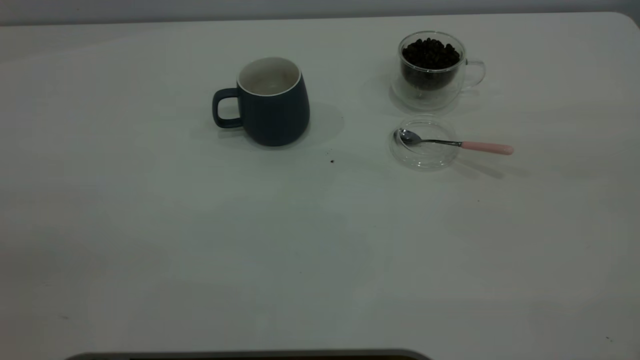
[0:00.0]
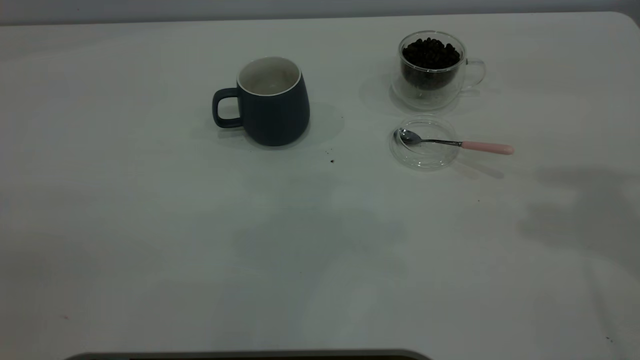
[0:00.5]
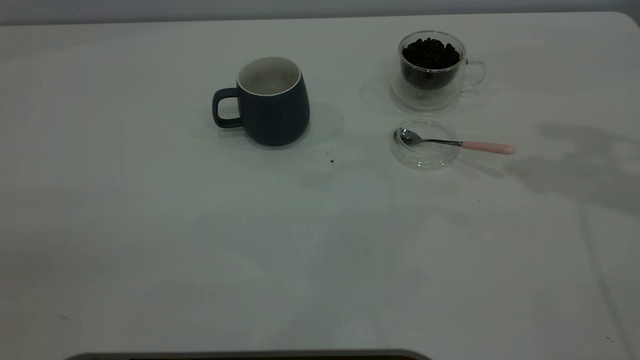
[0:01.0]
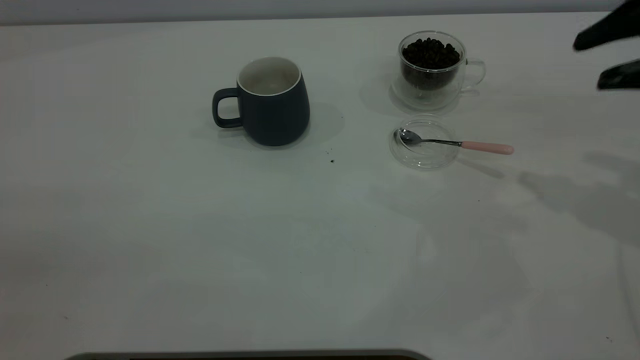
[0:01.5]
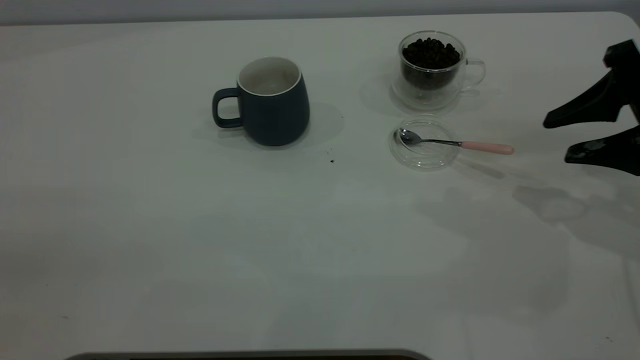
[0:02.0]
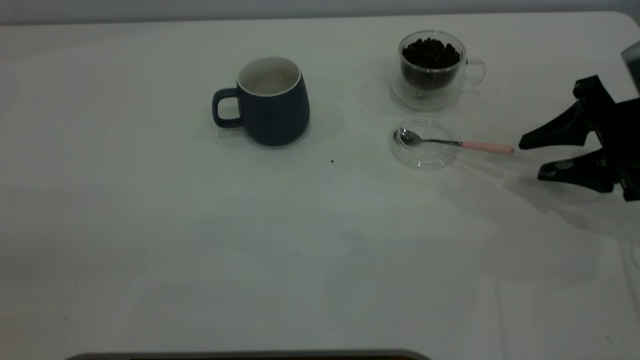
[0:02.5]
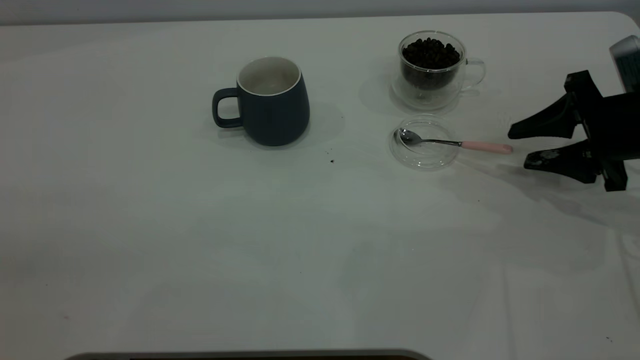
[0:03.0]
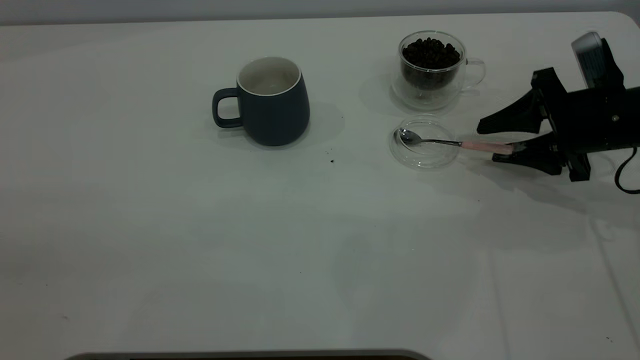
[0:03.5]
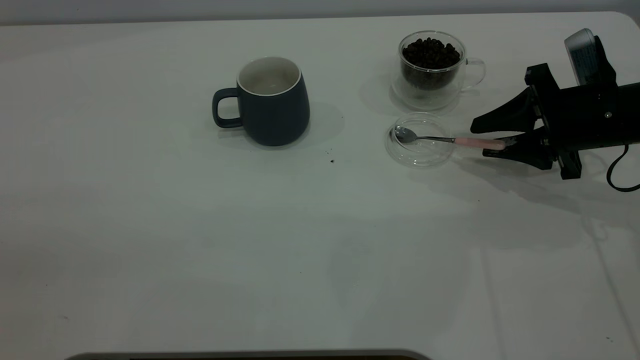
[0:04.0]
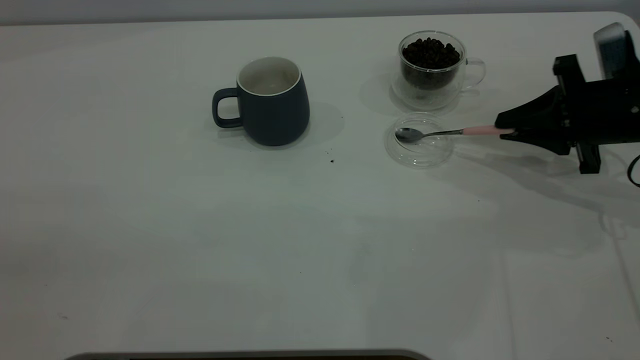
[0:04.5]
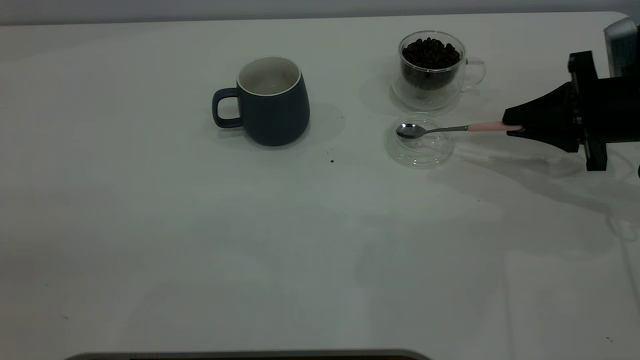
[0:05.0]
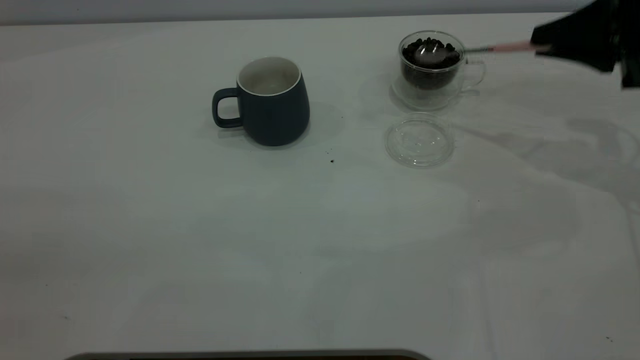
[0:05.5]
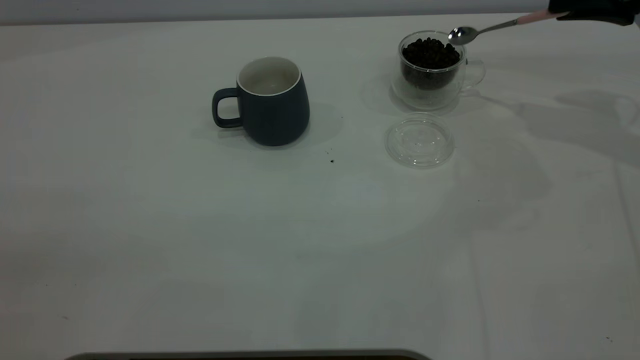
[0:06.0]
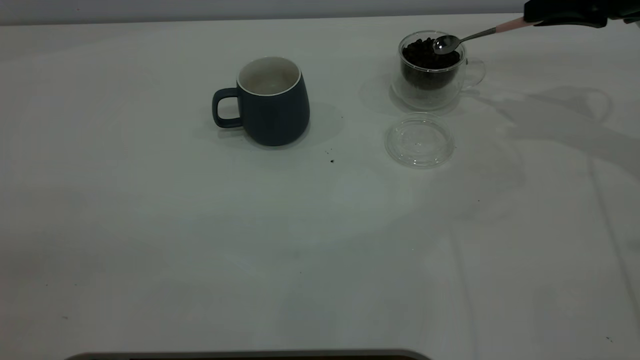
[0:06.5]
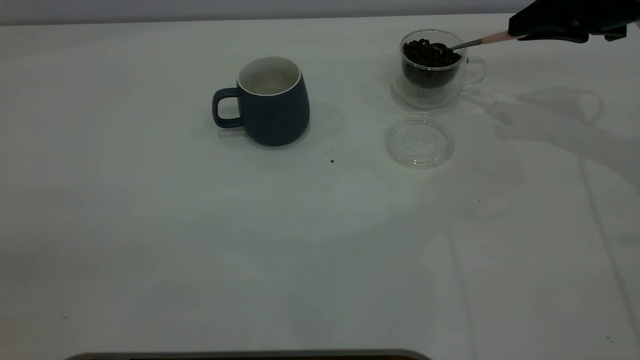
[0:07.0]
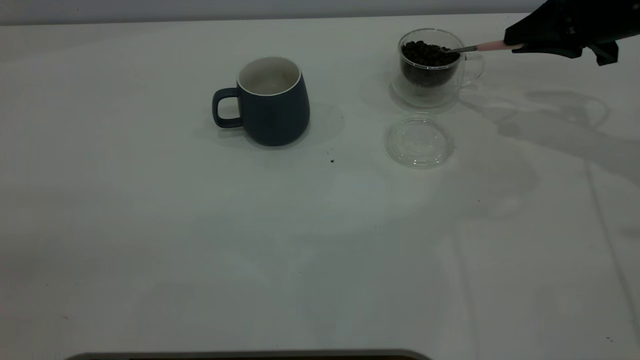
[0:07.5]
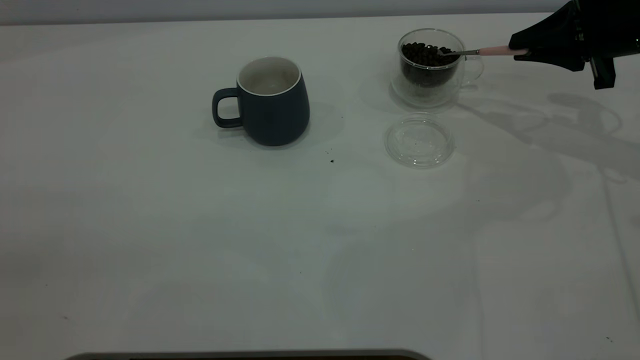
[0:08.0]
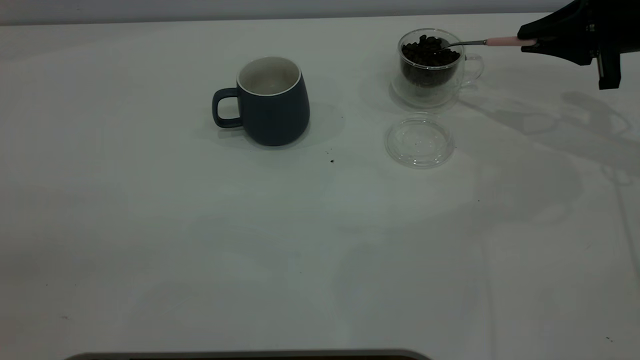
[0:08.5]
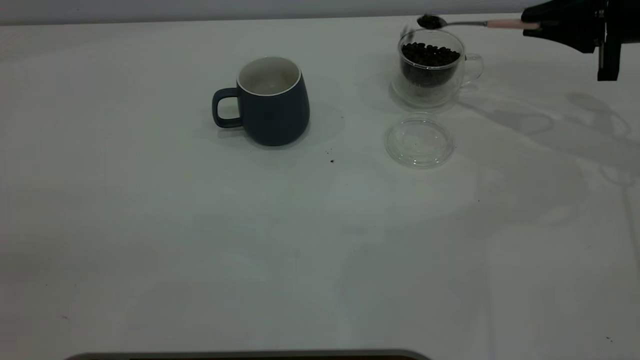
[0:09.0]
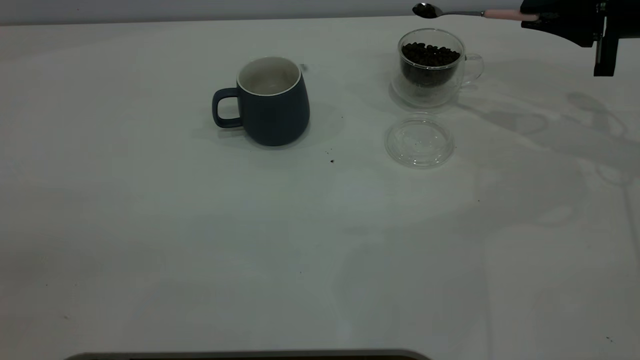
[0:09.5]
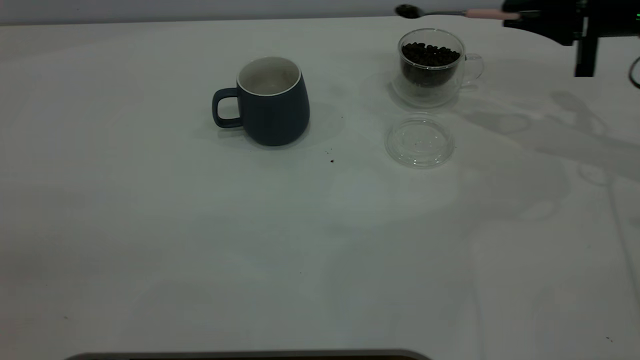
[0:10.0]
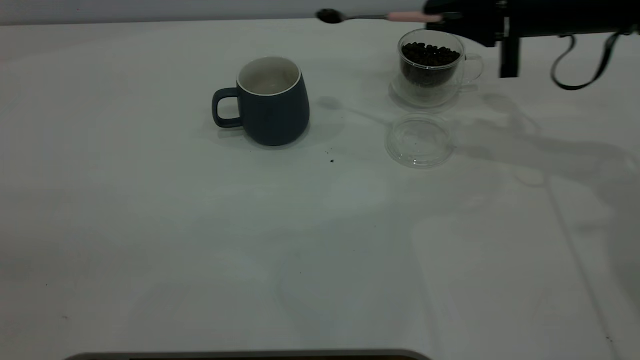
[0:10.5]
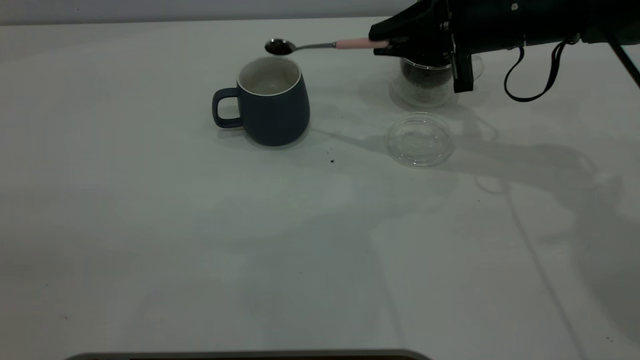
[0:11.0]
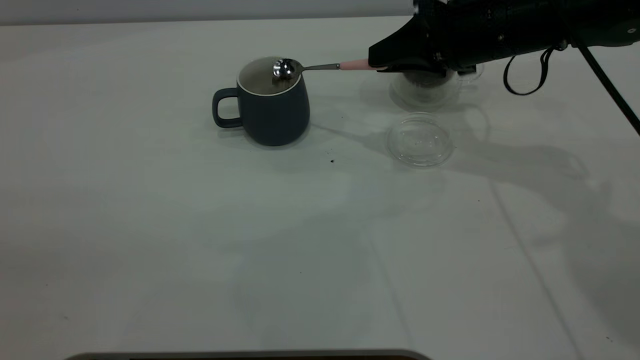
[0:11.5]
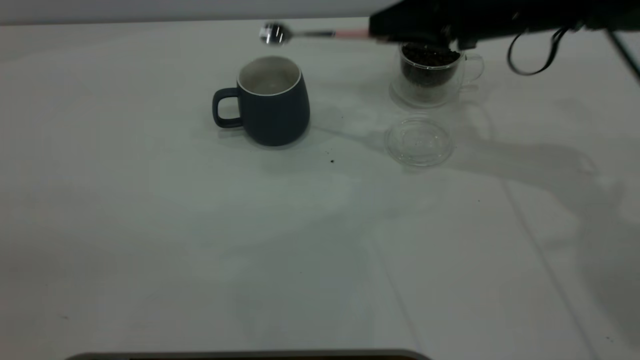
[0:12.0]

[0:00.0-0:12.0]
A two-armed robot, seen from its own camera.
Task of the whole recording: the left gripper place the grey cup in the center of the table, the right gripper take the pink spoon from the cup lid and scoop out the coffee beans from the coffee cup and put them into the grey cup, the right gripper put the spoon back into the cup lid.
Step, 0:00.0 to 0:05.0: Pick up the spoon.
Step, 0:05.5 to 0:11.5: Scoop a spoonful of beans into the cup.
0:00.0 to 0:02.0: The right gripper is displaced downward and forward by roughly 35 cm.
0:02.0 to 0:04.0: The right gripper moves downward and forward, some 10 cm.
0:04.0 to 0:06.0: The right gripper shifts some 15 cm upward, forward and to the right, and closes up.
0:06.0 to 0:08.0: The right gripper shifts roughly 5 cm downward.
0:08.0 to 0:10.0: The grippers make only small movements.
0:10.0 to 0:12.0: The right gripper moves to the left, some 10 cm.

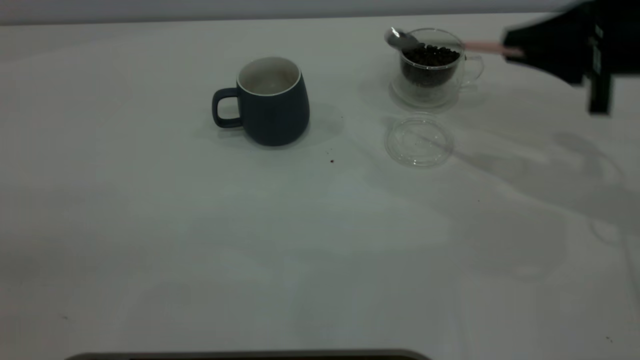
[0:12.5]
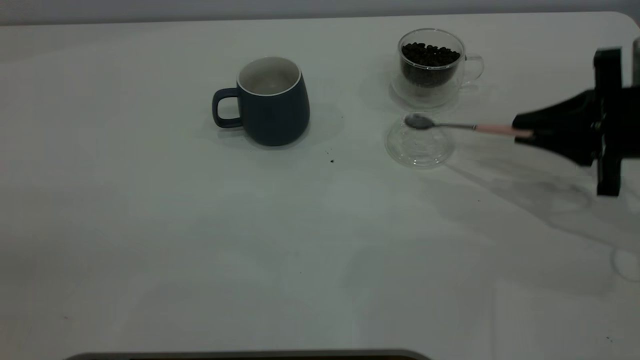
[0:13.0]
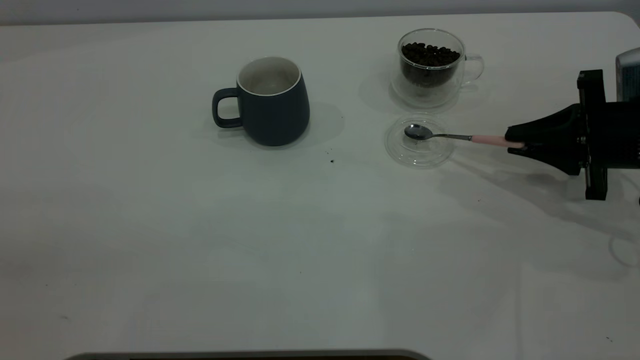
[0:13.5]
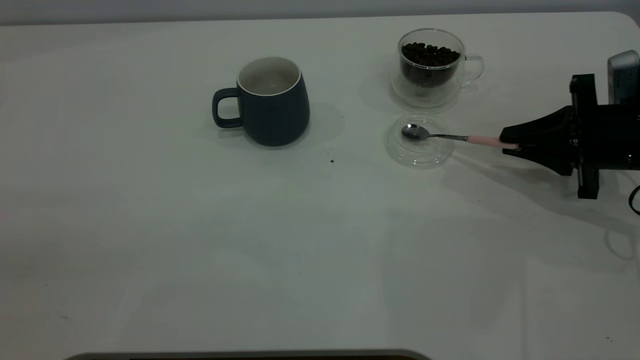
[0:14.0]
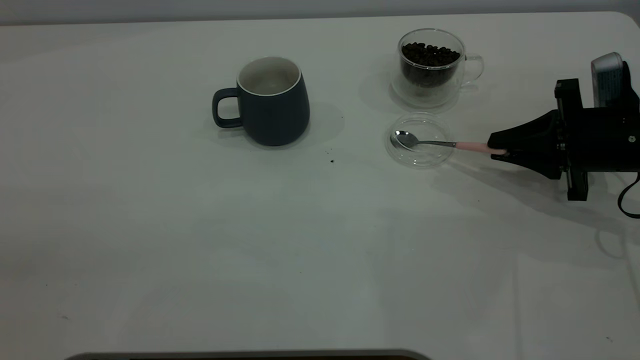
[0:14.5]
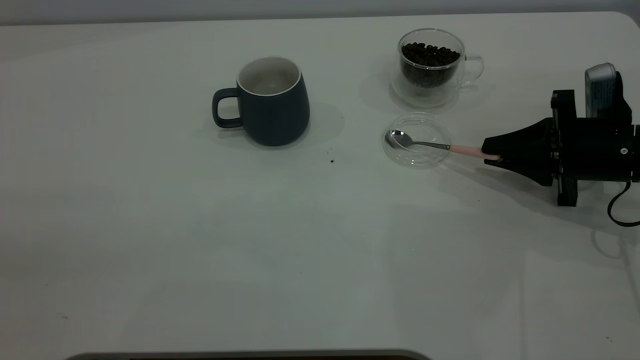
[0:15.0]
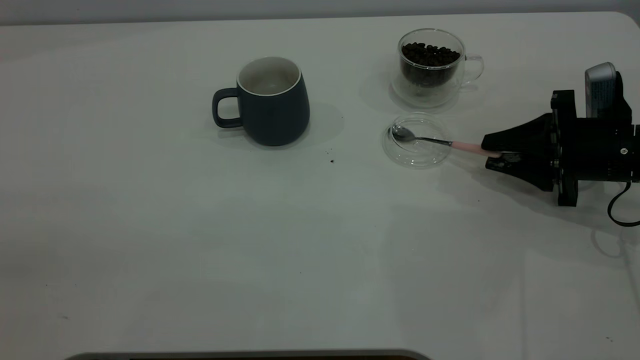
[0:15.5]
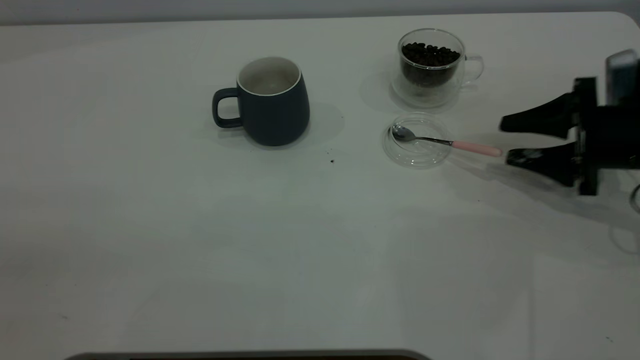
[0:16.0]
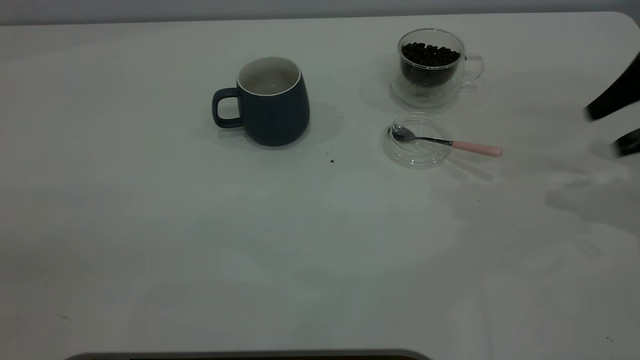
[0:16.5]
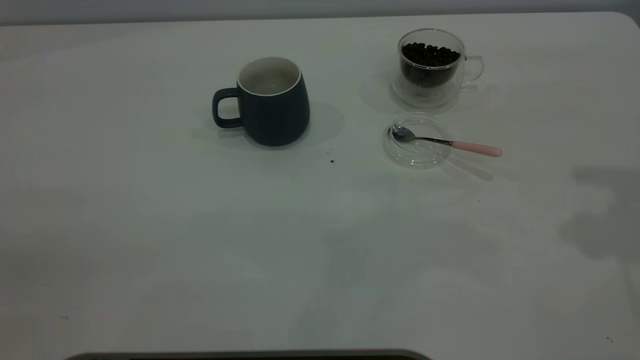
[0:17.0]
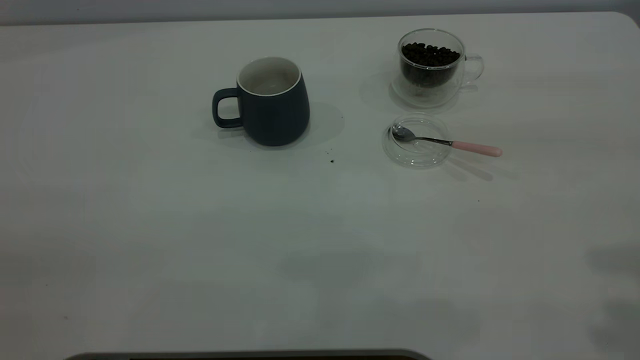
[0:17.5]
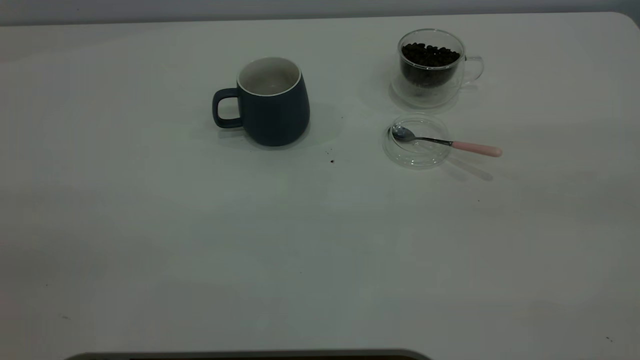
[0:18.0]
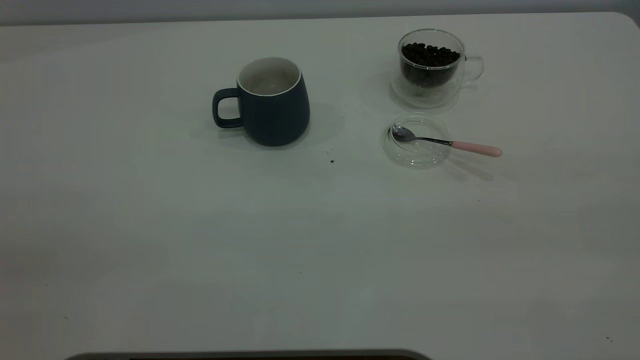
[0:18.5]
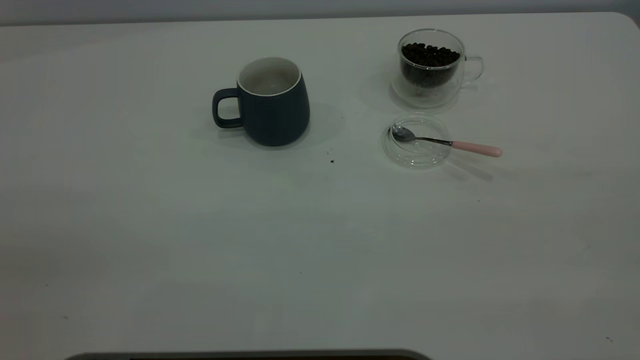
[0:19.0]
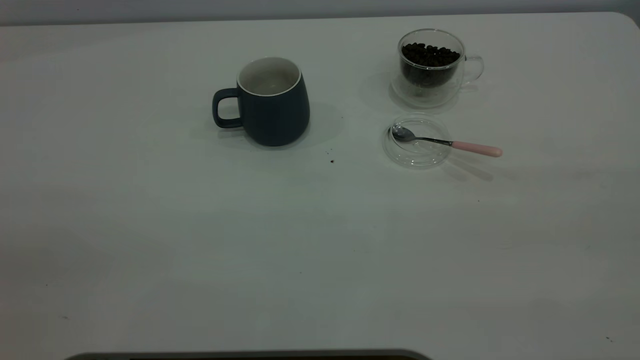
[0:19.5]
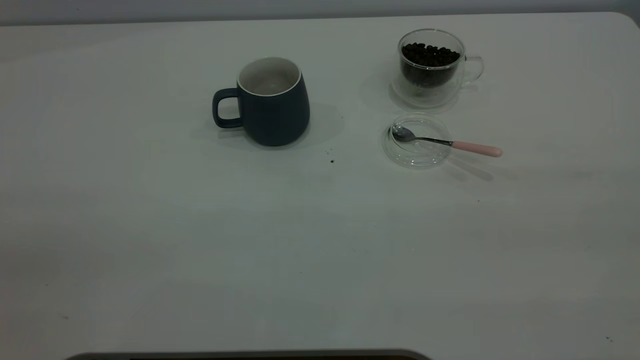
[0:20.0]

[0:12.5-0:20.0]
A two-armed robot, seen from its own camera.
Task of the whole recording: the left gripper place the grey cup in the center of the table, the right gripper take the pink spoon from the cup lid and scoop out the coffee beans from the coffee cup and put them into the grey cup, the right gripper put the spoon back into the cup lid.
Step, 0:12.5 to 0:16.0: Place the spoon back in its original place.
0:12.5 to 0:14.5: The right gripper shifts some 10 cm downward.
0:14.5 to 0:16.5: The right gripper heads upward and to the right, covering approximately 15 cm, and opens.
0:16.5 to 0:18.0: The right gripper goes some 35 cm backward and upward.
